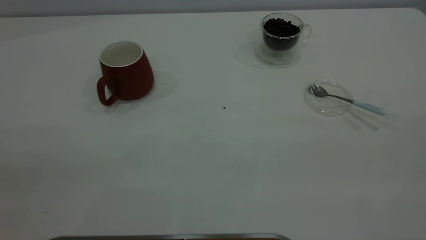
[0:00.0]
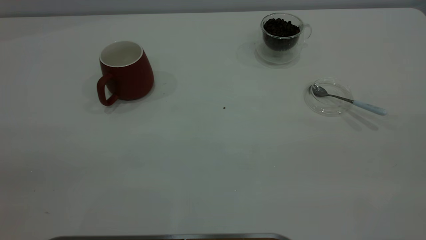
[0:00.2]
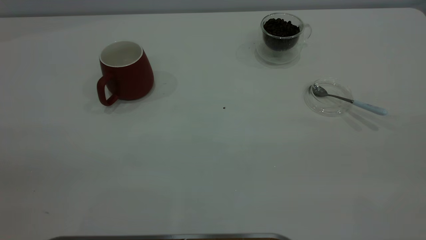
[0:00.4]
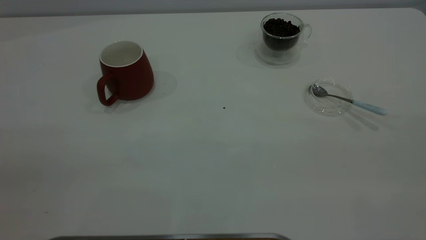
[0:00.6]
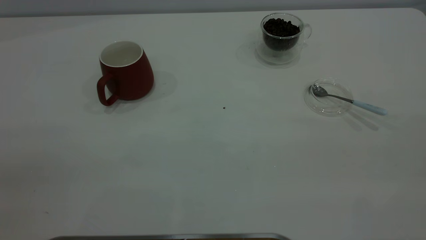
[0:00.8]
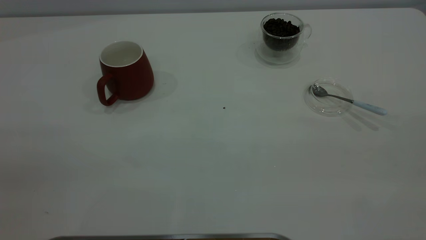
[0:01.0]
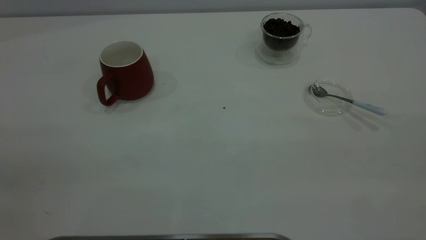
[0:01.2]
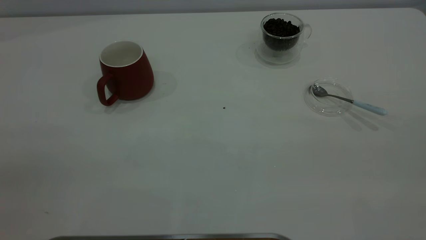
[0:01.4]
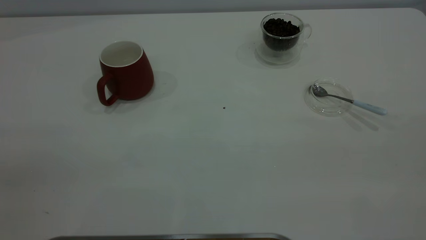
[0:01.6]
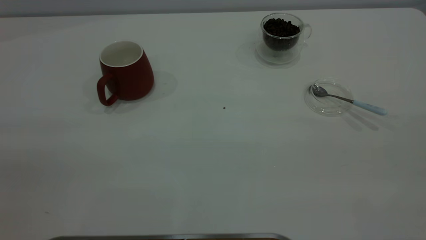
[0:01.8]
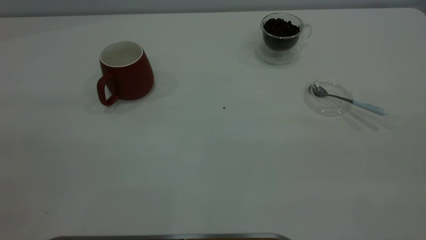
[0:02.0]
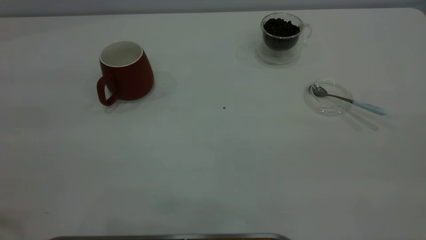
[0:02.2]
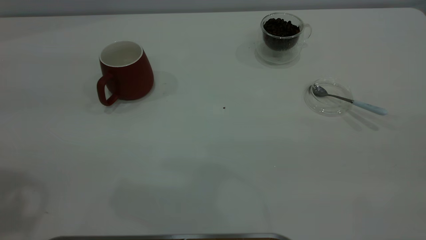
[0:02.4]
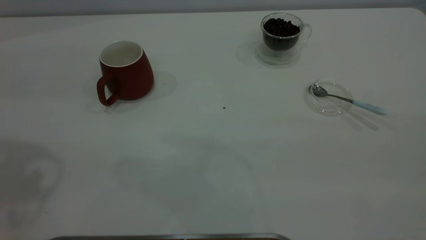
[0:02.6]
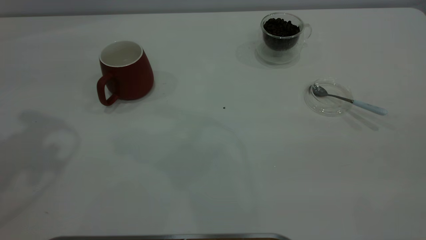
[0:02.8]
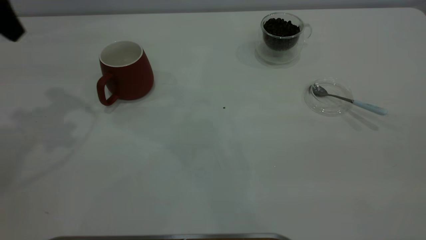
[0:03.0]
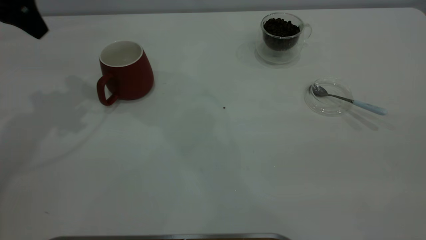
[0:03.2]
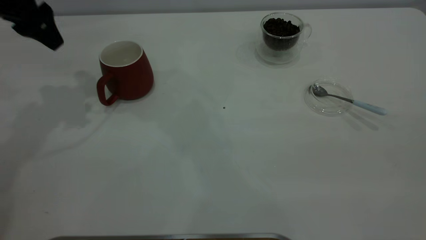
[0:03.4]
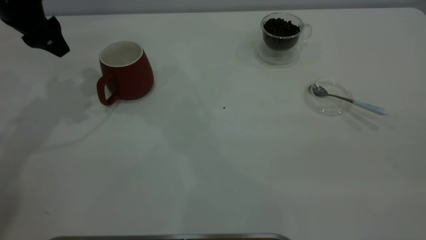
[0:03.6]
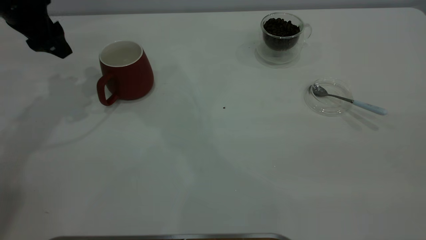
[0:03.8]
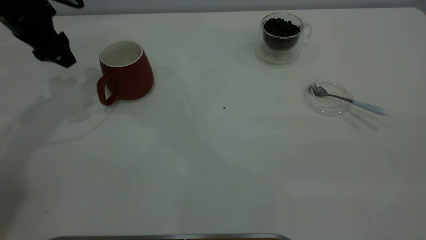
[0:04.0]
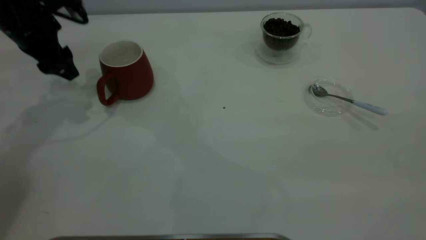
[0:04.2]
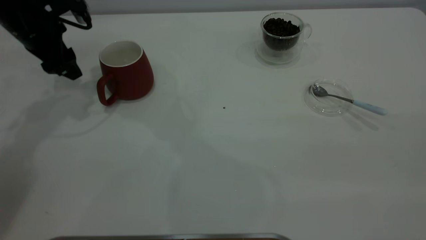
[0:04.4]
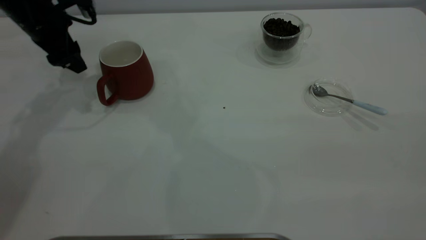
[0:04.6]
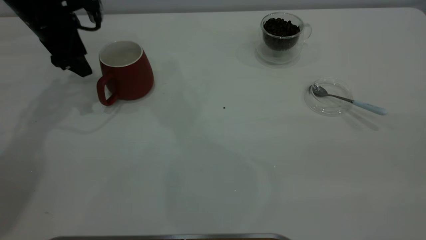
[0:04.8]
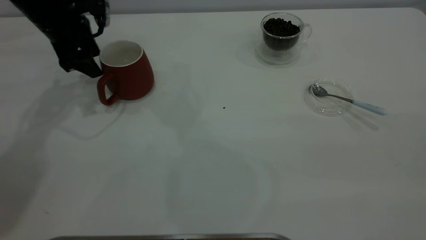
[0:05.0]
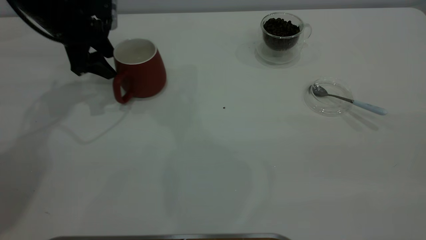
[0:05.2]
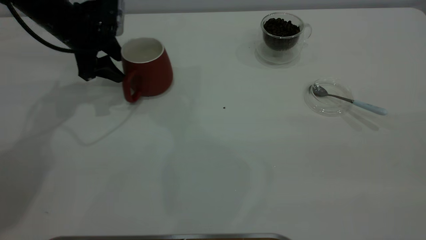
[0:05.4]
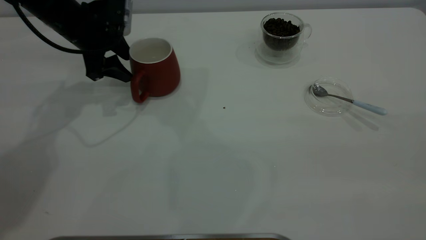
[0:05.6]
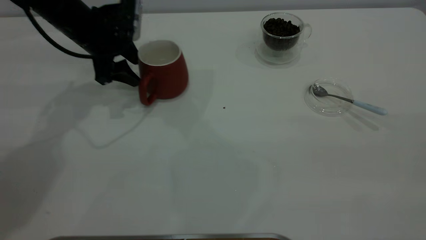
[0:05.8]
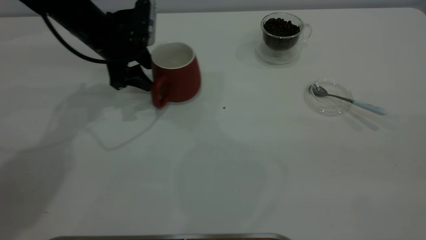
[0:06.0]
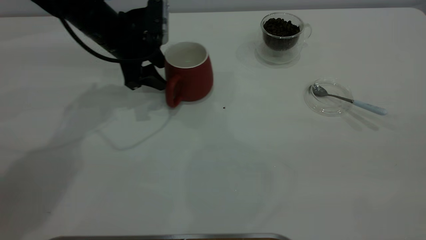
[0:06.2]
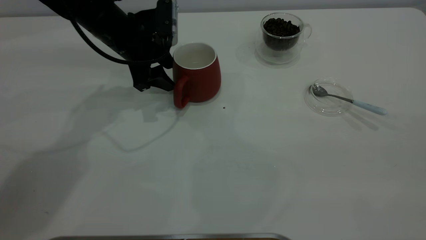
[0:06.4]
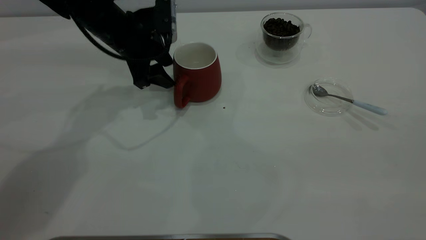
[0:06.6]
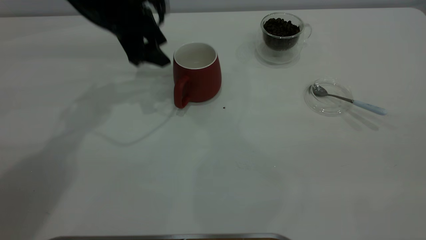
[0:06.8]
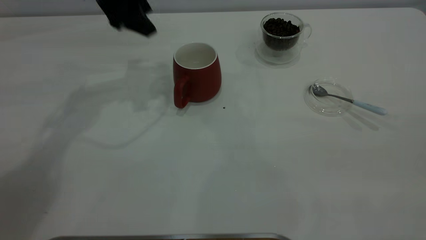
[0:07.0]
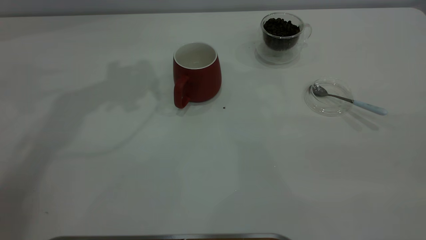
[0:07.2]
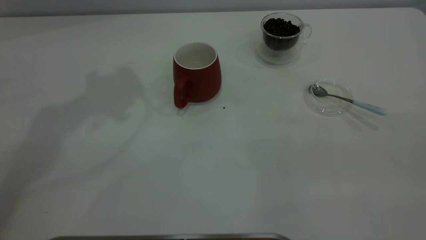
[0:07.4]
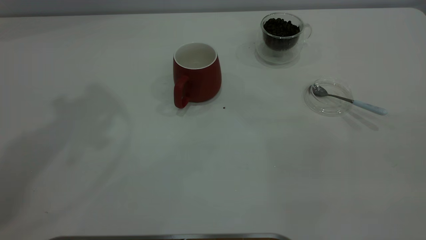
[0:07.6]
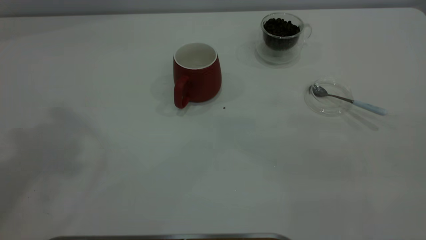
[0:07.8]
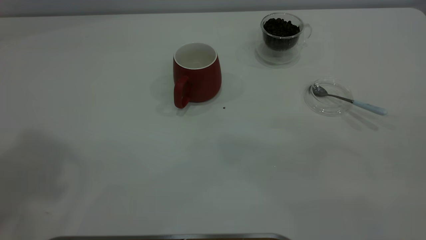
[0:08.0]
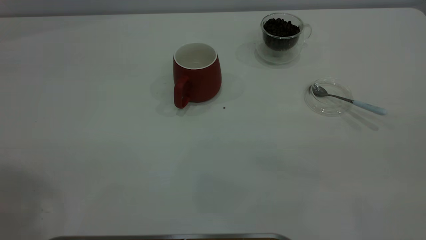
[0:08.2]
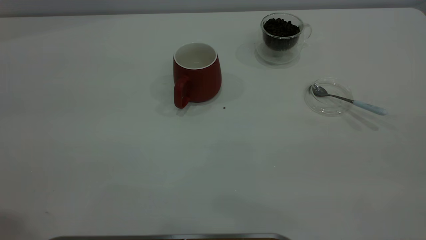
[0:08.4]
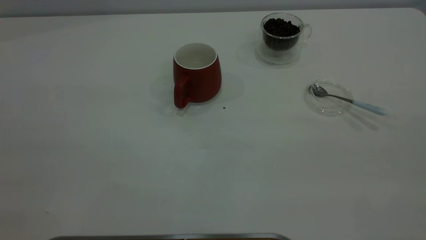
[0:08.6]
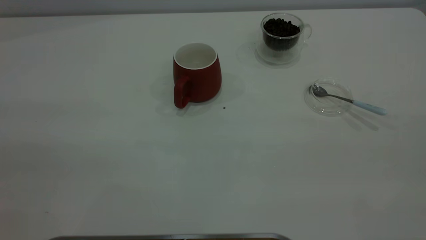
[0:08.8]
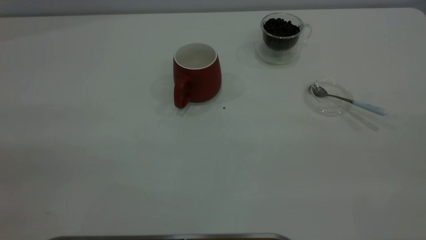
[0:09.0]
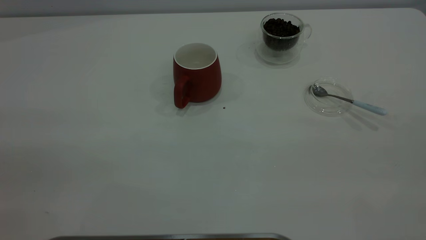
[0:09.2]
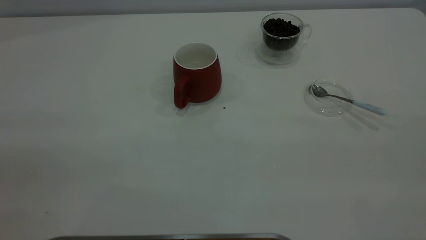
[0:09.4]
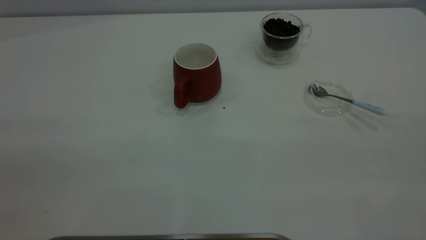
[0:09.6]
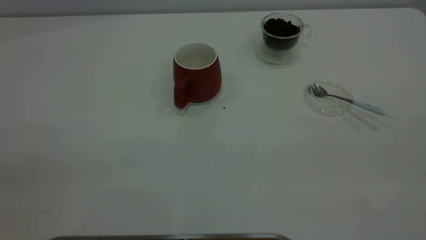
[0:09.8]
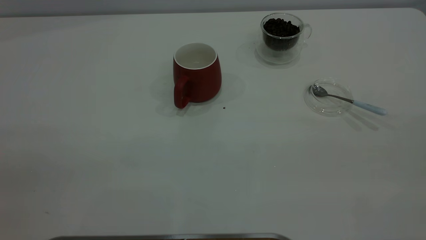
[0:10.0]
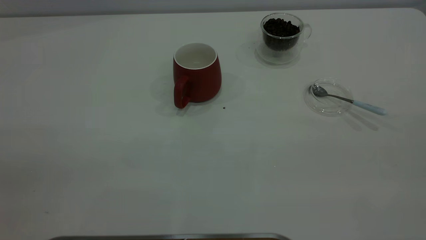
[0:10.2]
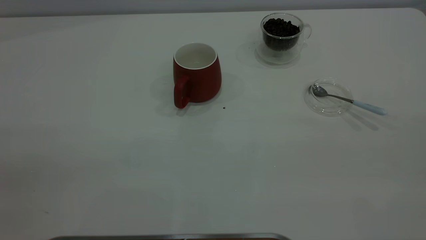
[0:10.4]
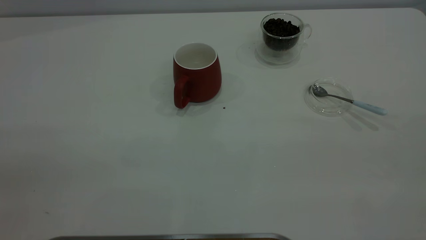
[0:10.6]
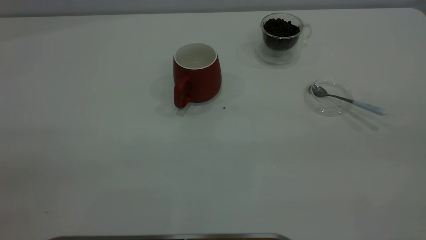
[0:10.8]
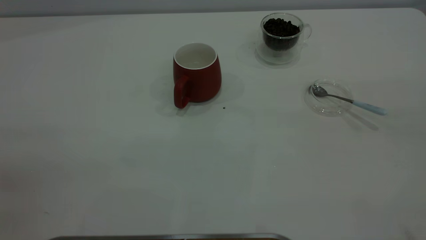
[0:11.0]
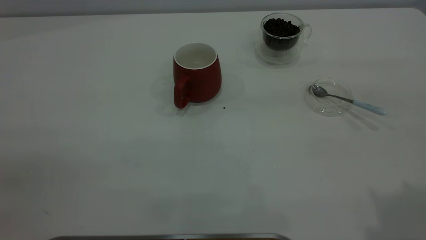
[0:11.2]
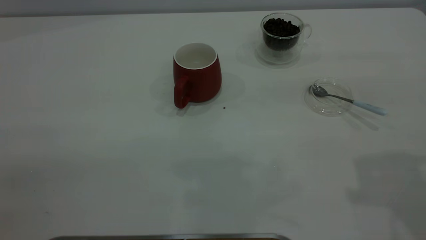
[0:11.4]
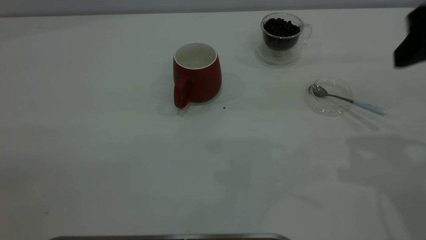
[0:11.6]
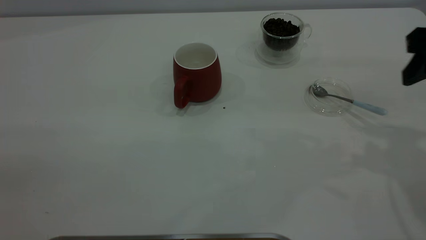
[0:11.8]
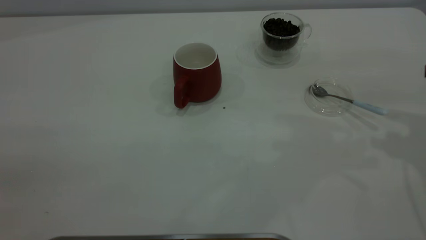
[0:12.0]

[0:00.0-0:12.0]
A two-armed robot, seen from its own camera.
Task of the whole recording: the left gripper place the red cup in the center of the table, the right gripper take the blue spoon from the cup lid and scoop out the coffee beans from the coffee cup and put them into the red cup, the right gripper put the spoon back into the cup lid.
Step, 0:00.0 to 0:06.8: Move the cup to the center of view.
0:00.0 to 0:01.6: Both grippers stay about where they are.
0:01.6 to 0:03.0: The left gripper moves forward, some 35 cm.
0:03.0 to 0:04.4: The left gripper moves downward and forward, approximately 15 cm.
0:04.4 to 0:06.0: The left gripper travels to the right by approximately 10 cm.
0:06.0 to 0:07.6: The left gripper is displaced upward by approximately 35 cm.

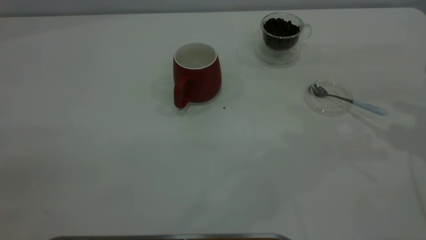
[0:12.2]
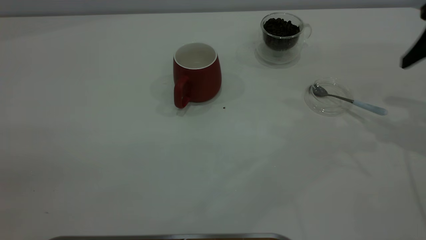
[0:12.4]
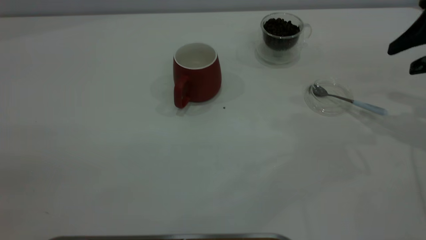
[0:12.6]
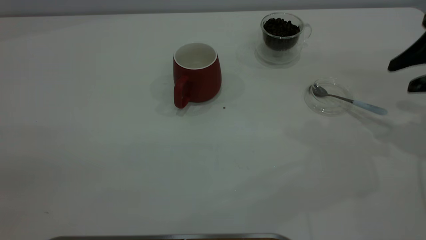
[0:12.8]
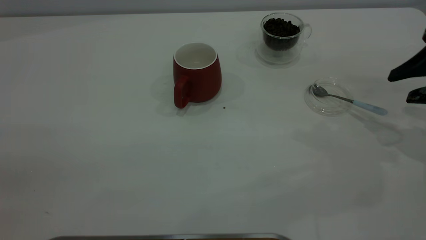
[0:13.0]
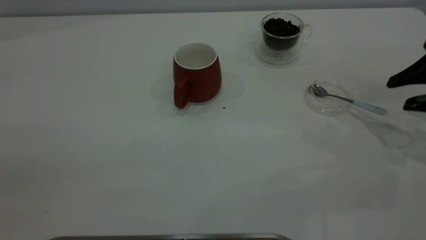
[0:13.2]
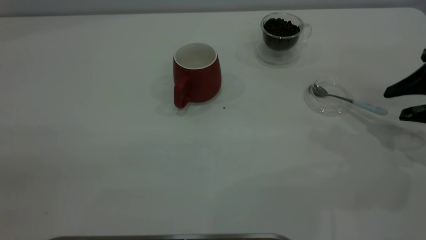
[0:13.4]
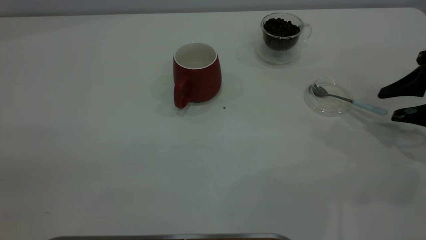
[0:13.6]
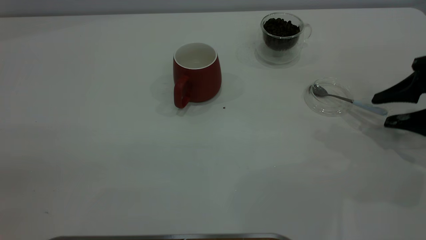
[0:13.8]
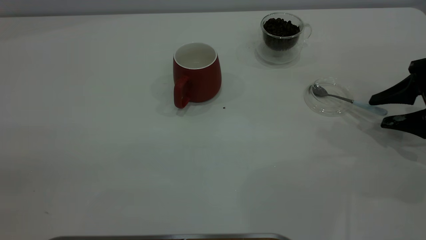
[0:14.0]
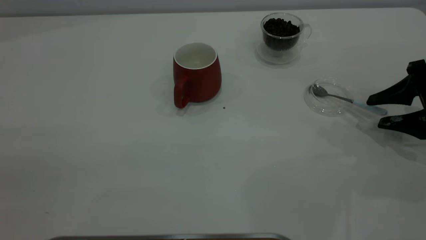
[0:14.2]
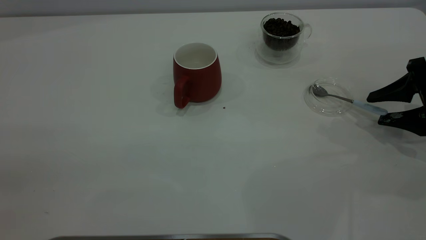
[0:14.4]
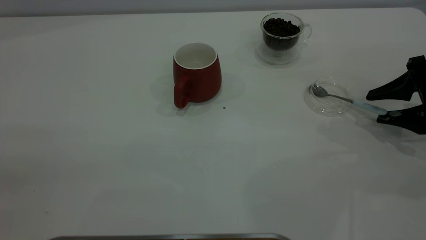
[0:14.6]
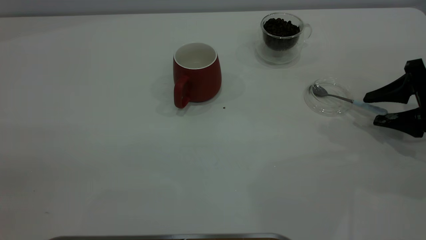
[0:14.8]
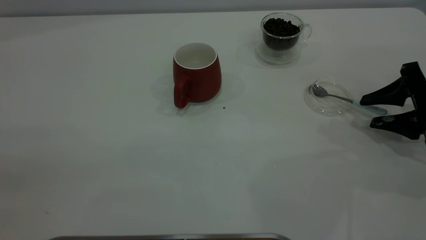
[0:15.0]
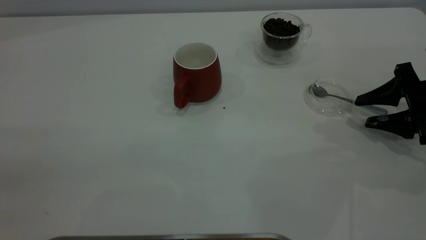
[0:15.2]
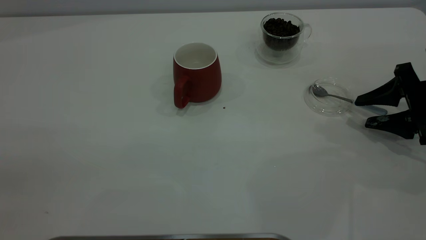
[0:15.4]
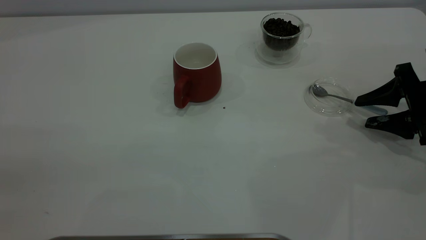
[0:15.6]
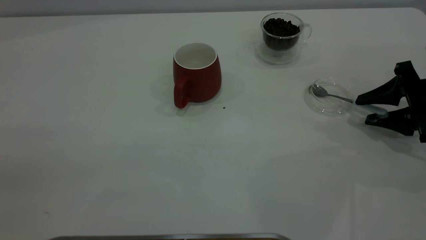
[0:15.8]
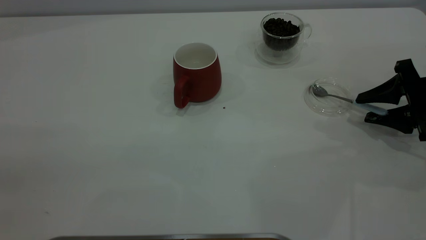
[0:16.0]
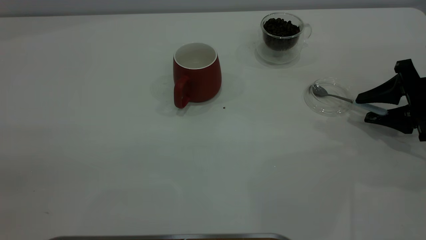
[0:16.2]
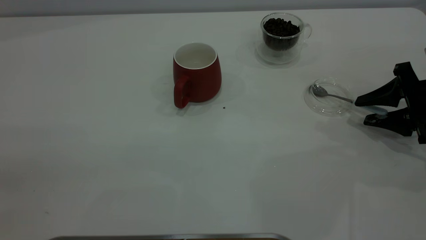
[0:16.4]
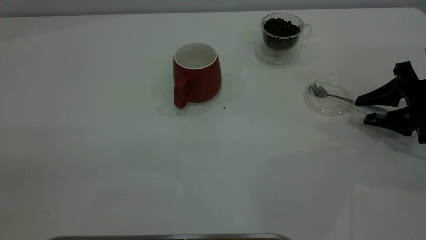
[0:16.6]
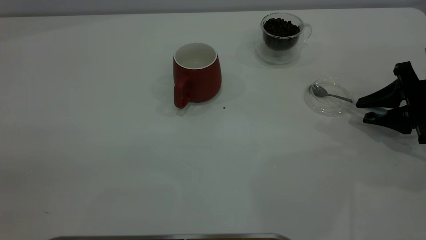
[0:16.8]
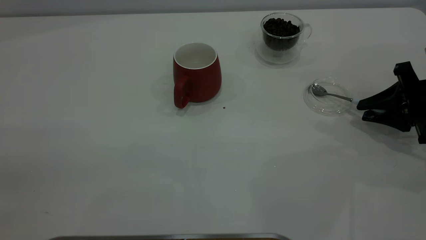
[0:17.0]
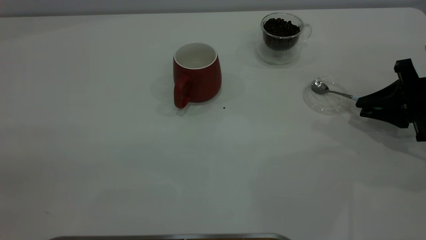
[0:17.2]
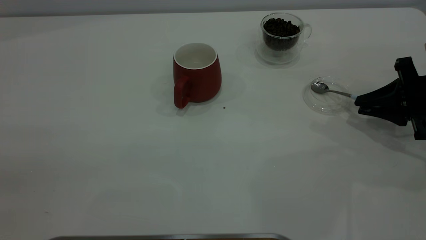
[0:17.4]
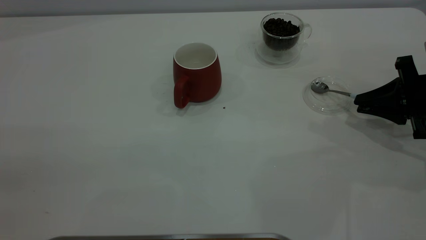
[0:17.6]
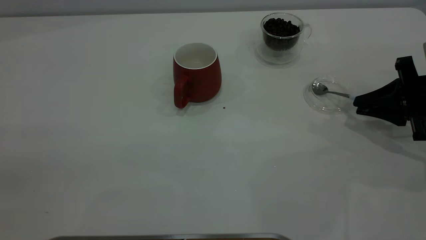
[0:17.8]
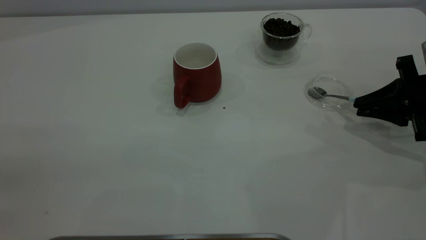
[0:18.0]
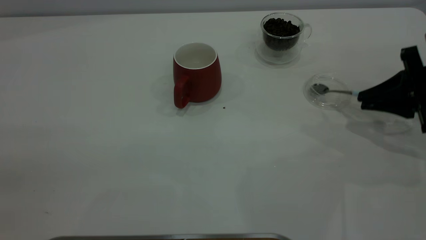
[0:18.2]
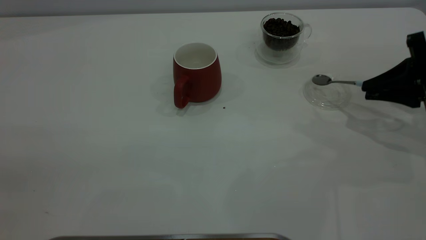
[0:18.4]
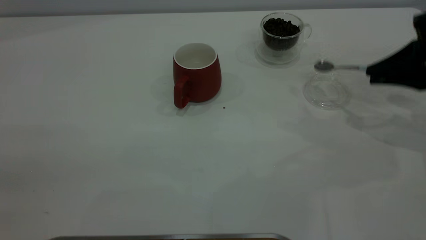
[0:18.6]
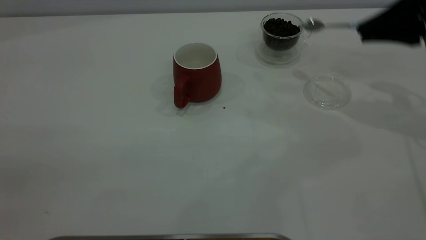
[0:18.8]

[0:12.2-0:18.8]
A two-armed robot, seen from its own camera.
Task of the whole recording: the left gripper place the red cup in the center of the table, the right gripper take the blue spoon from the cup lid and scoop out the coffee beans from the coffee cup and put them into the red cup, the right gripper put the spoon back into the cup lid.
Step, 0:12.2 to 0:18.2: Pick up the spoon.
0:12.2 to 0:13.8: The right gripper travels downward by some 15 cm.
0:13.8 to 0:15.4: The grippers stay close to where they were, moving slightly.
0:15.4 to 0:17.2: The right gripper closes.
0:17.2 to 0:18.8: The right gripper moves upward and forward, some 15 cm.
